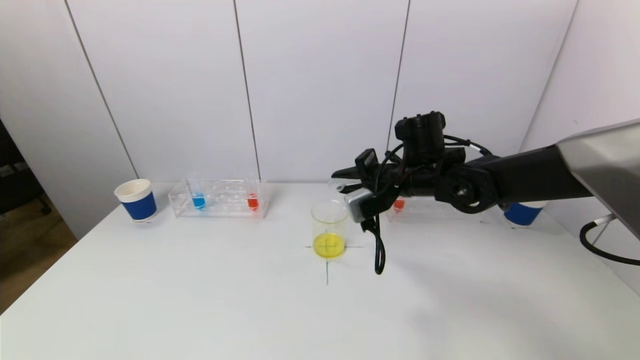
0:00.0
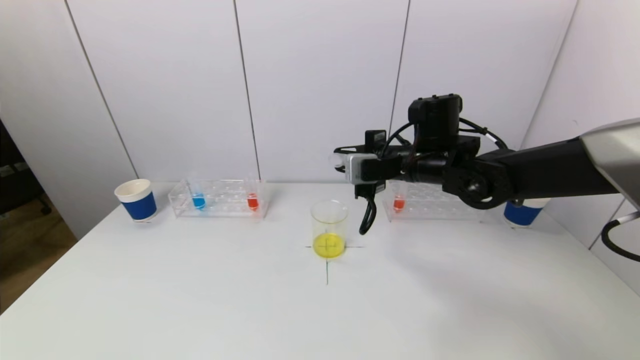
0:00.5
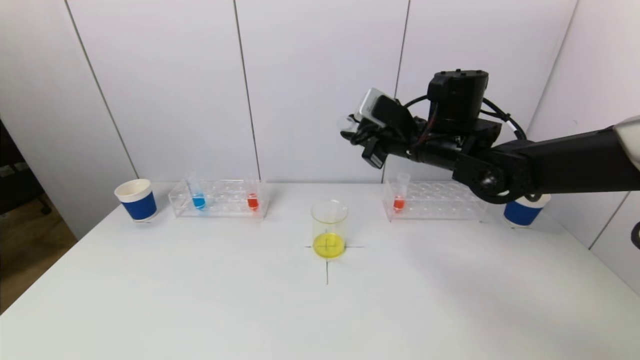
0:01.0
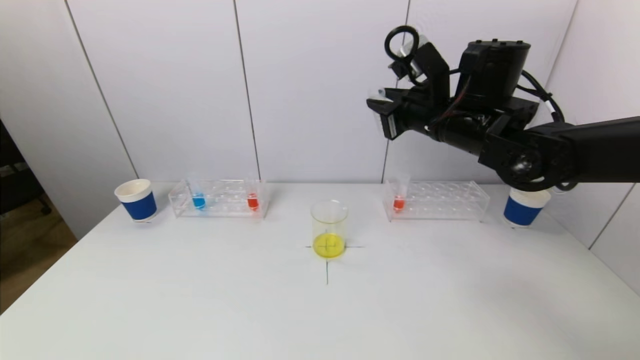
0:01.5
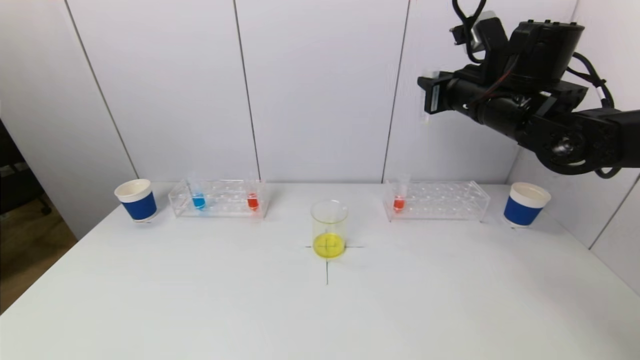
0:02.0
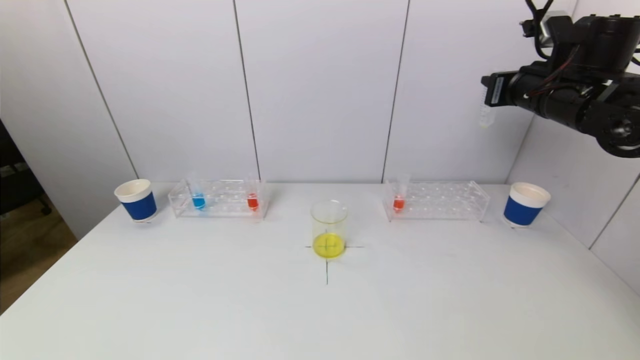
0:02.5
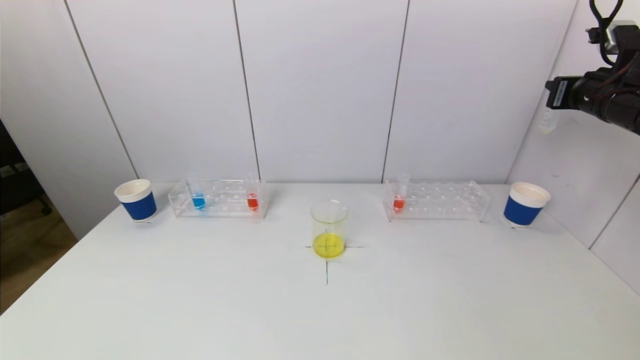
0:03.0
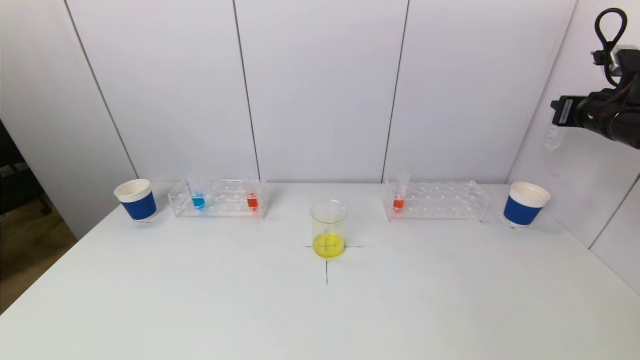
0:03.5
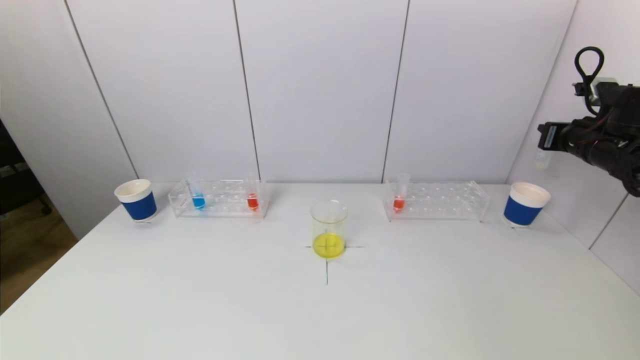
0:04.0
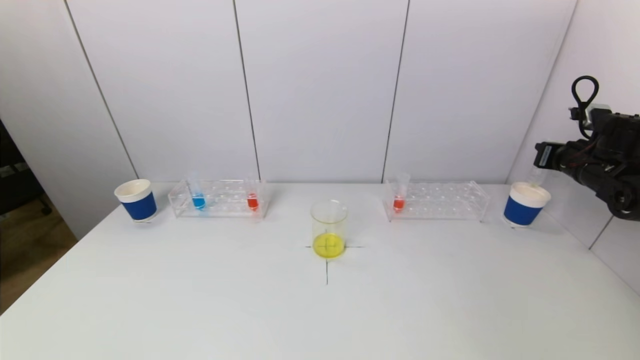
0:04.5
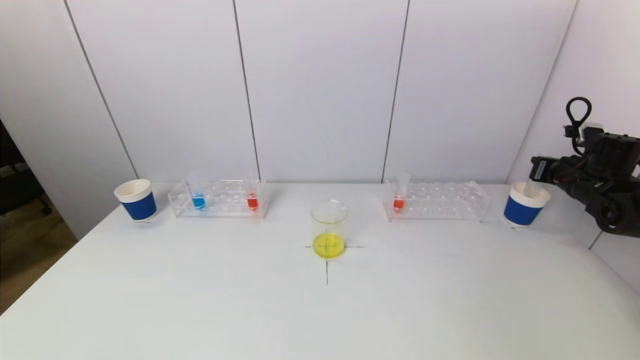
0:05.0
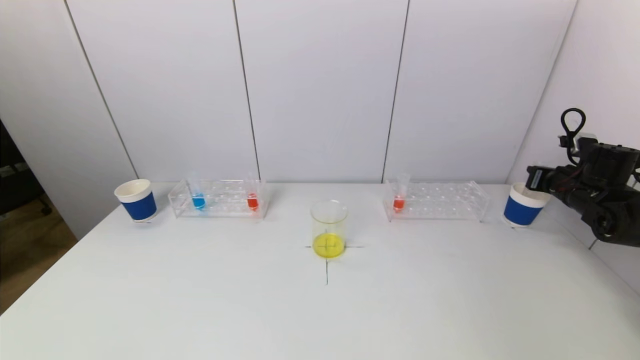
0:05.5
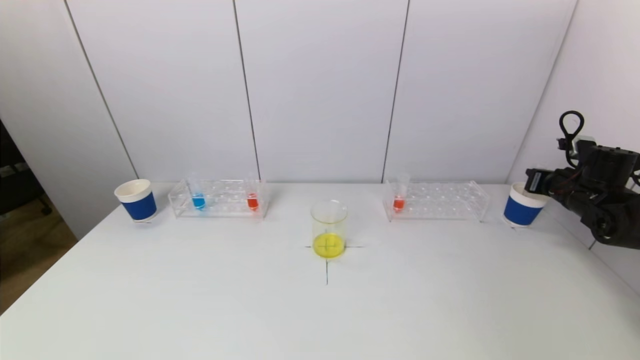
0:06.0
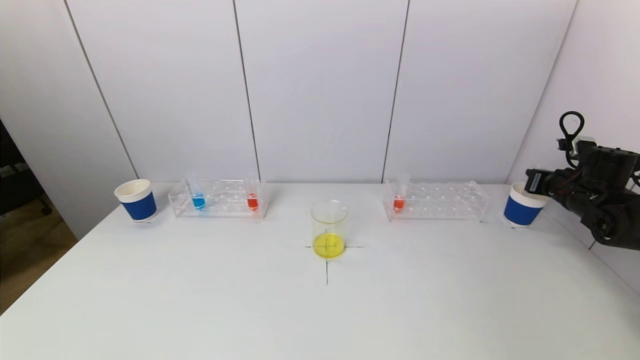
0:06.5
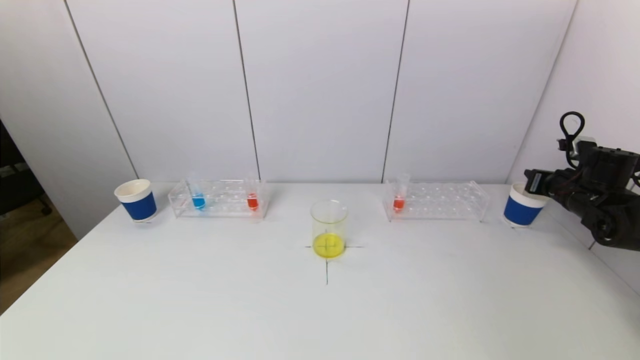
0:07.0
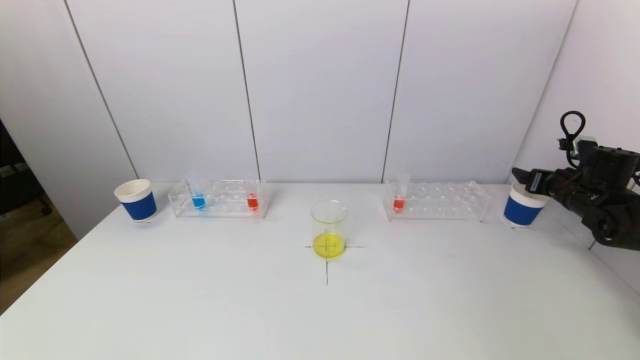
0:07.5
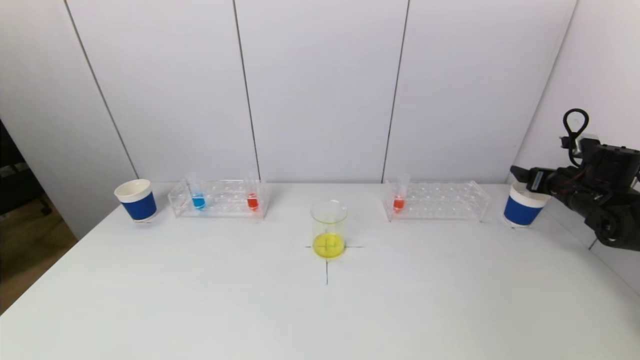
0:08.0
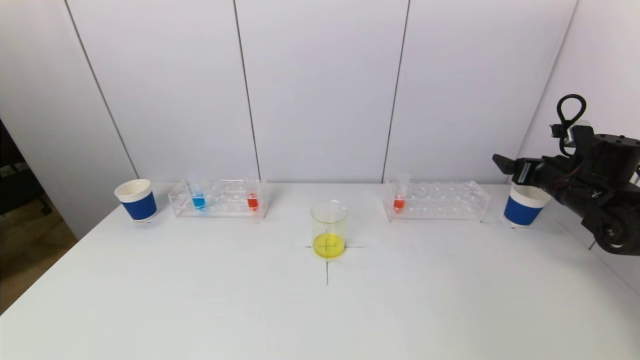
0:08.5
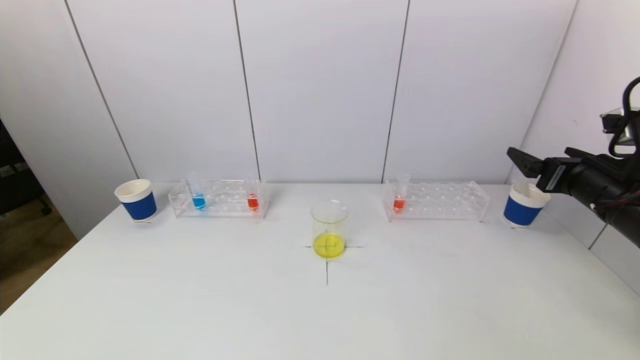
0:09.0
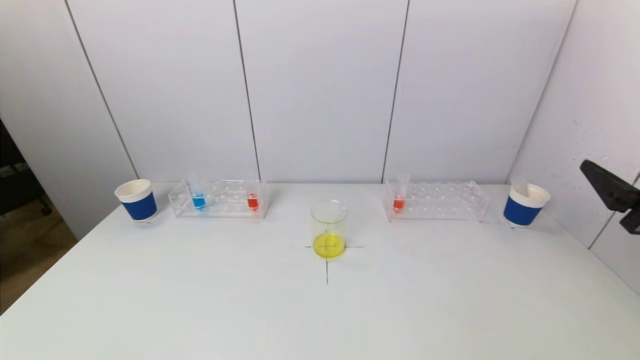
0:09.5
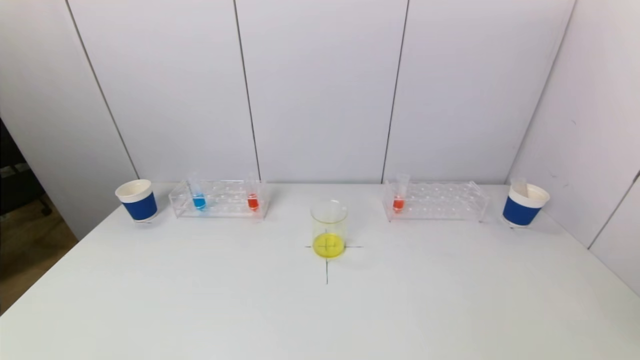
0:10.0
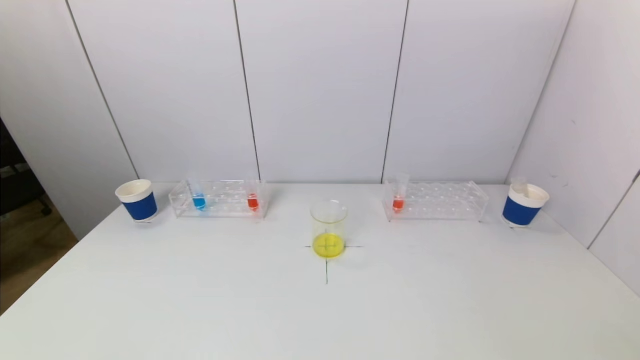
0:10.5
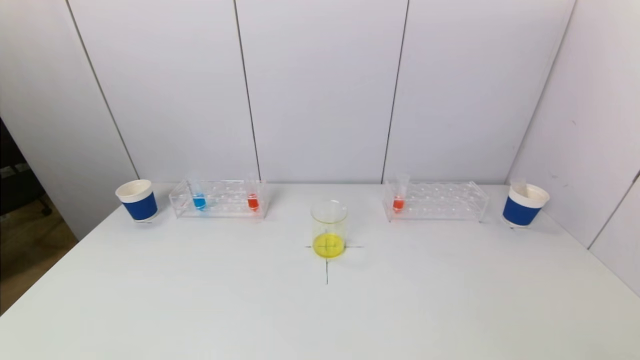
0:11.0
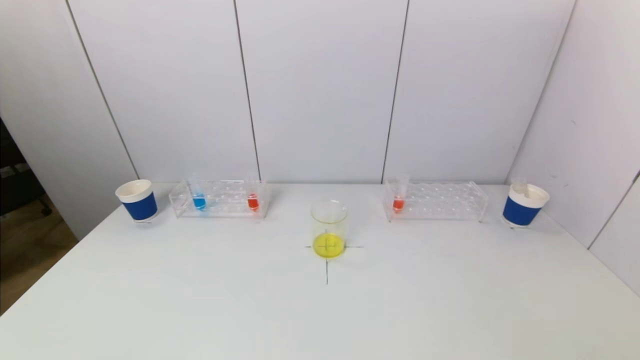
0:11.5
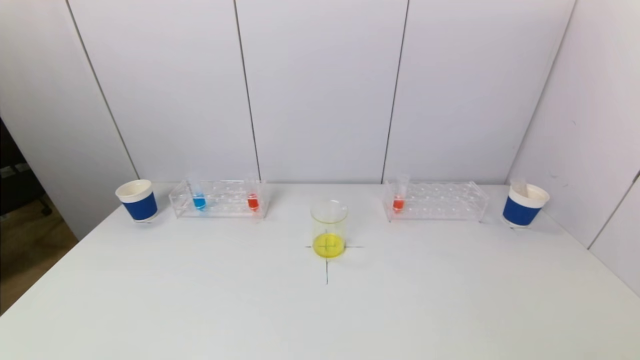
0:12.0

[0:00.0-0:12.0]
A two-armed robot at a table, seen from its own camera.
Task of the whole recording: pick up a test tube with pigment on left test tube rack and a test tube with pigment on right test tube rack by grippers and pour them into the beaker.
Step, 0:00.0 to 0:07.5: Place the test tube into the paper cup with the right gripper.
0:00.0 to 0:02.0: The right gripper is displaced upward and to the right by about 15 cm.
0:02.0 to 0:04.0: The right gripper is displaced to the right by roughly 20 cm.
0:04.0 to 0:06.0: The right gripper heads downward, covering roughly 10 cm.
0:06.0 to 0:08.0: The right gripper opens up.
0:08.0 to 0:10.0: The right gripper heads backward, covering approximately 35 cm.

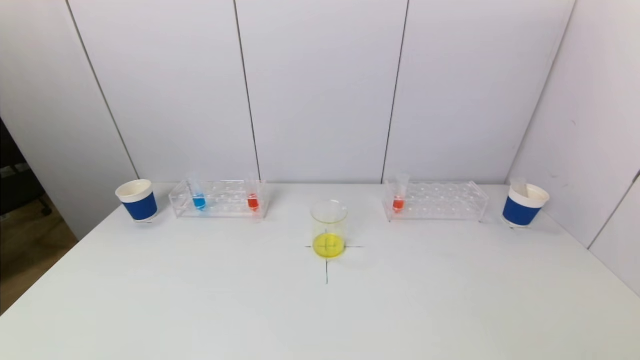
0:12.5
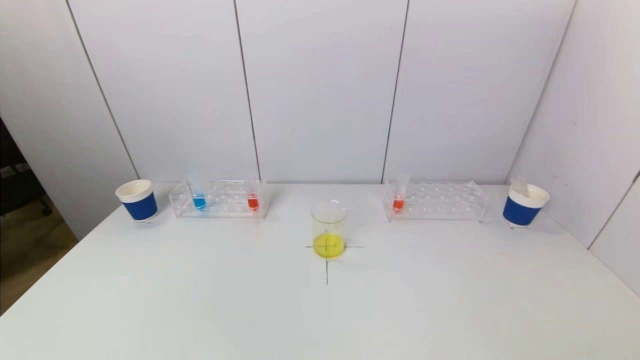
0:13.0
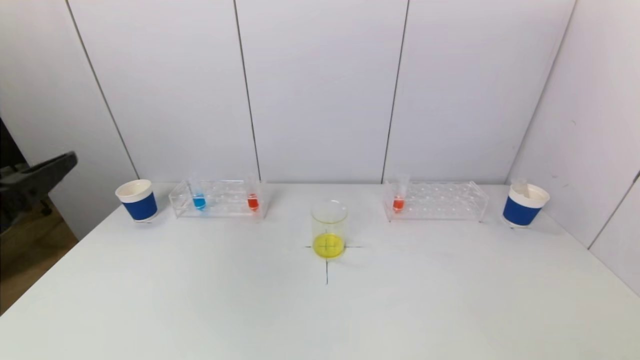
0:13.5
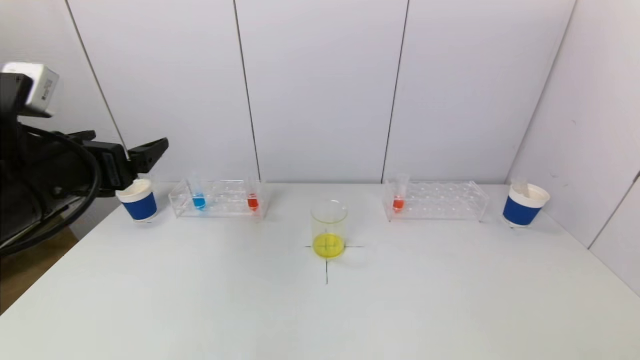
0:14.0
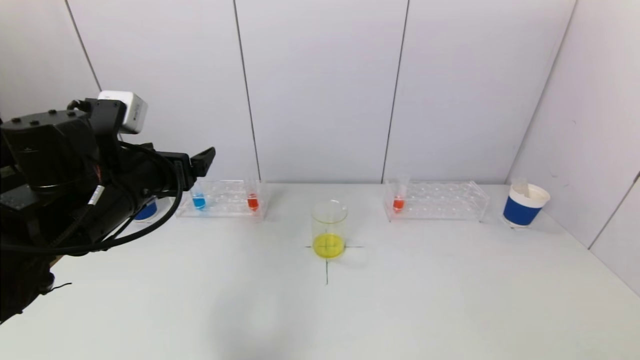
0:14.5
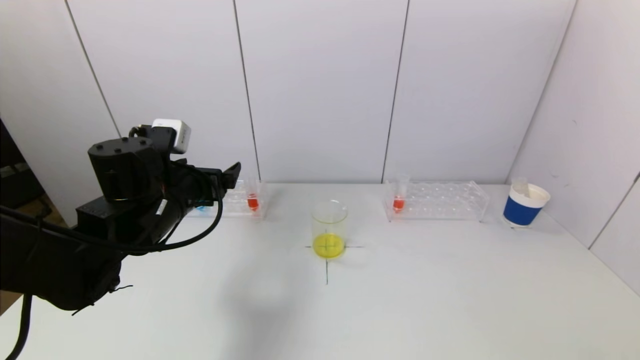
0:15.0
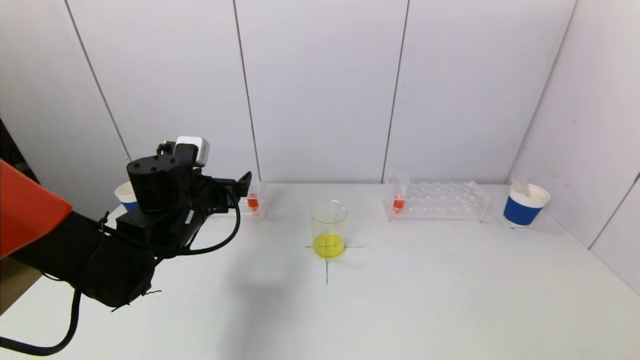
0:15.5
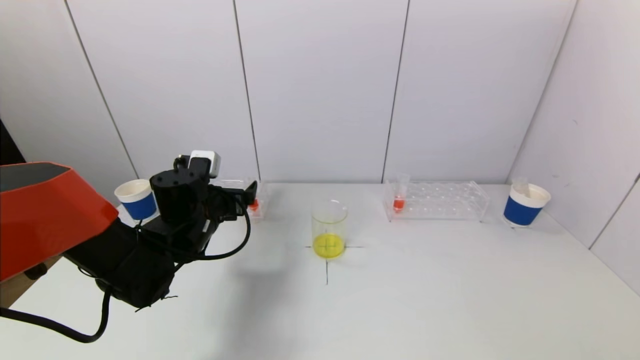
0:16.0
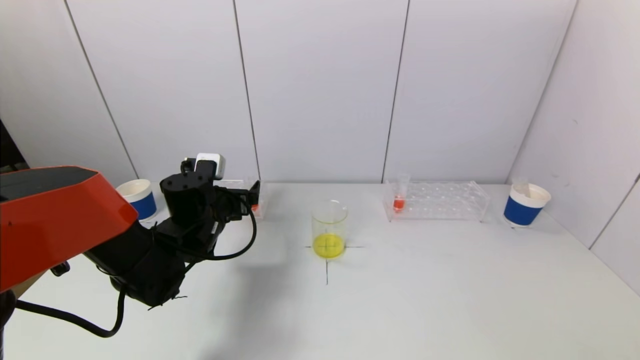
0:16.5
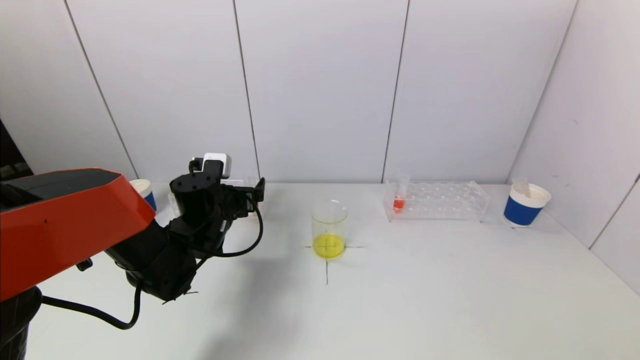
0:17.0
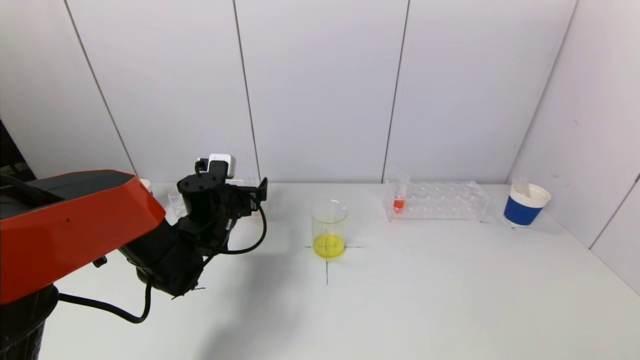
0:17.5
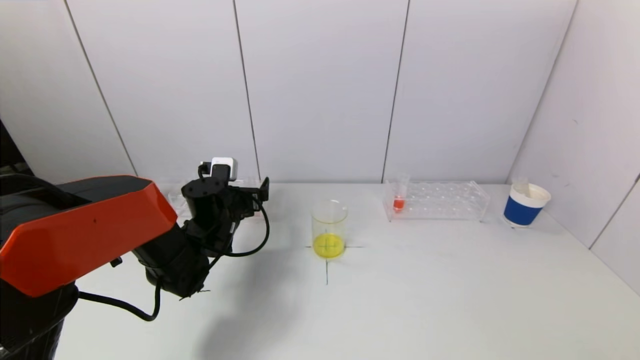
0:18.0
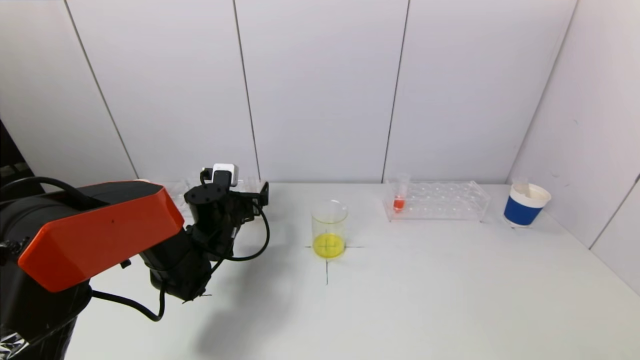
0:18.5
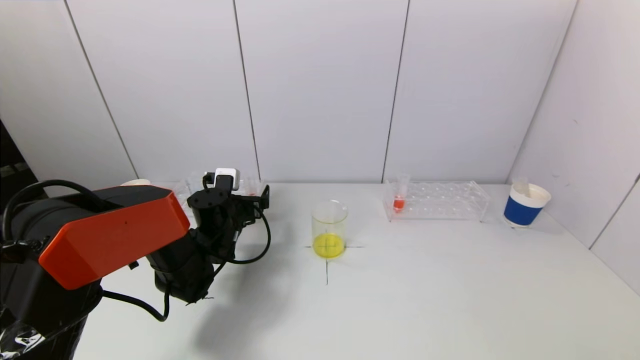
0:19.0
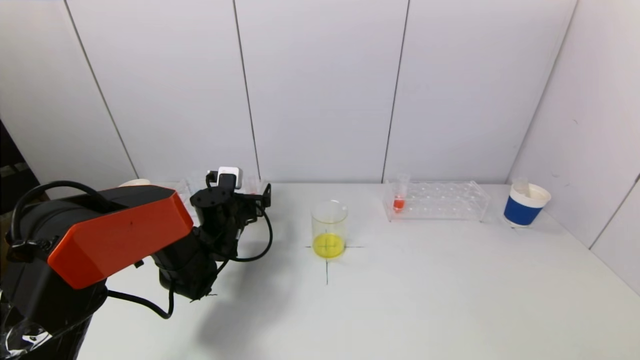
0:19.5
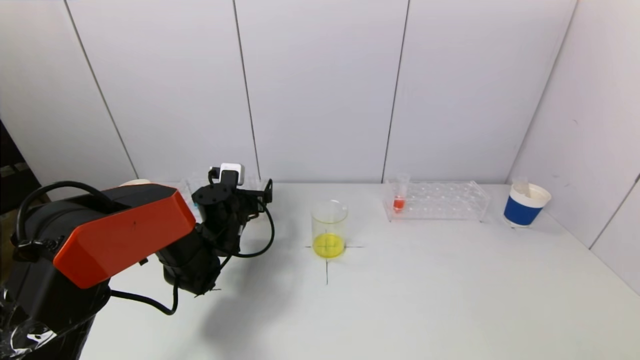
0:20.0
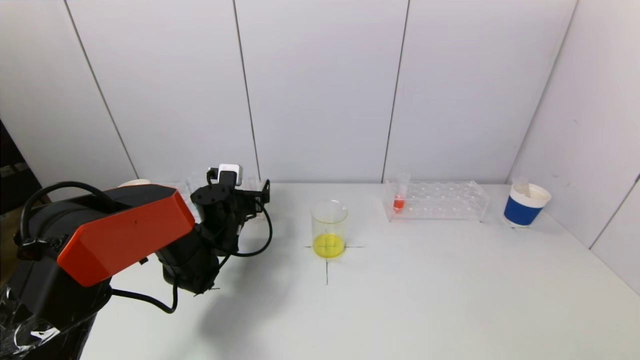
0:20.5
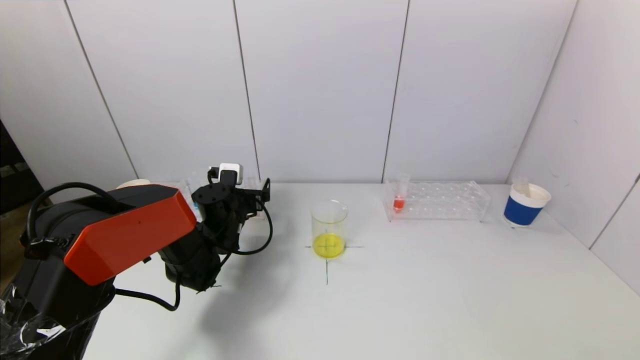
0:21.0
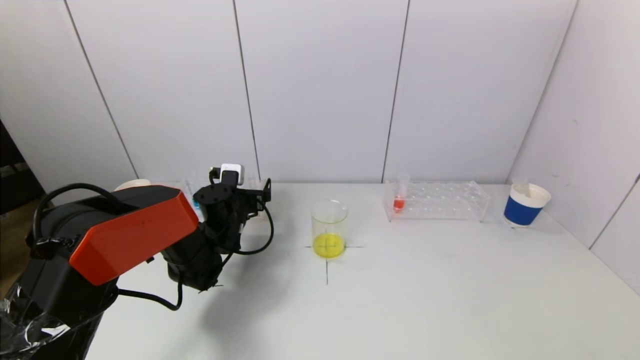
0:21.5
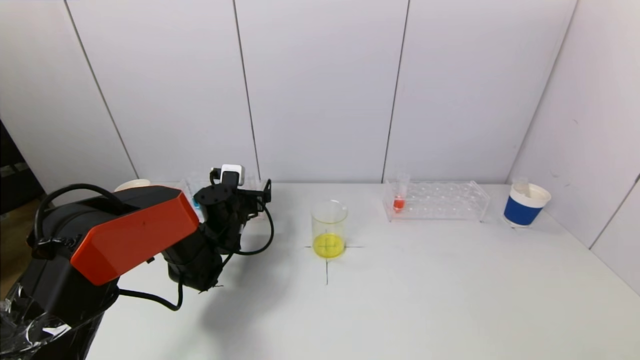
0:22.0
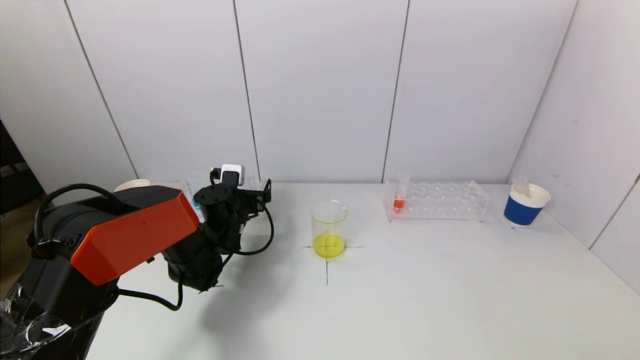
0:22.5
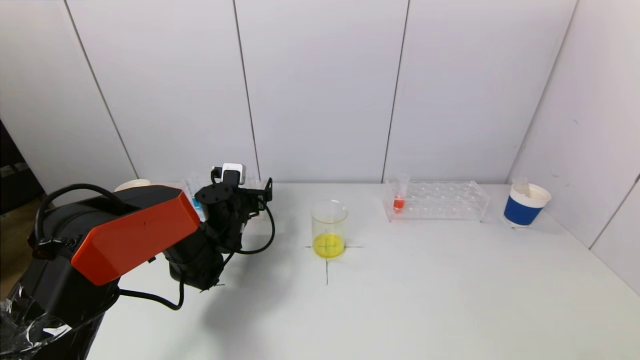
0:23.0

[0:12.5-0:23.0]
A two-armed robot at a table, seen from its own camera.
Task of the whole recording: pick up a test tube with pigment on left test tube rack and a test tube with pigment on right test tube rack by grippers and pour them into the beaker.
0:12.5 to 0:14.5: The left gripper shifts about 30 cm forward.
0:14.5 to 0:16.5: The left gripper is displaced downward and forward by some 15 cm.
0:16.5 to 0:19.0: The left gripper heads downward, covering approximately 5 cm.
0:19.0 to 0:21.0: The grippers stay close to where they were, moving slightly.
0:21.0 to 0:23.0: The two grippers keep their place.
